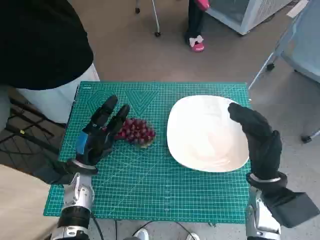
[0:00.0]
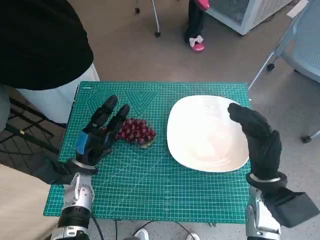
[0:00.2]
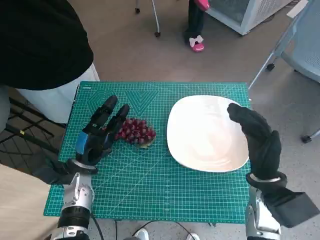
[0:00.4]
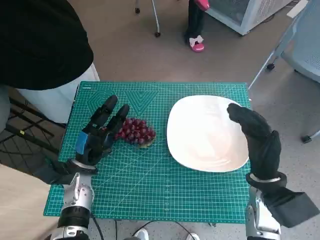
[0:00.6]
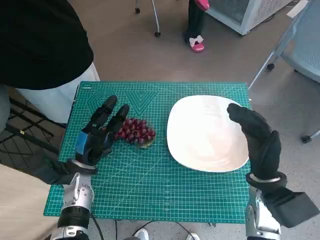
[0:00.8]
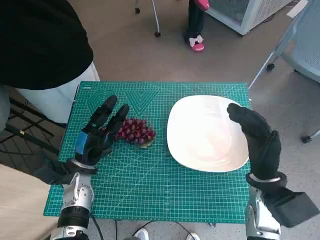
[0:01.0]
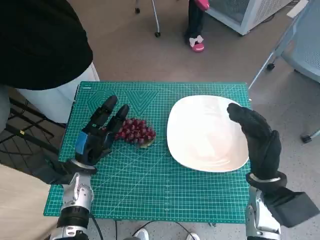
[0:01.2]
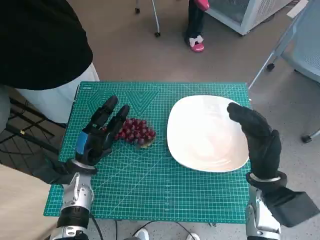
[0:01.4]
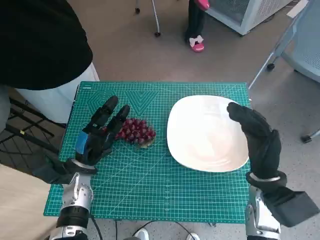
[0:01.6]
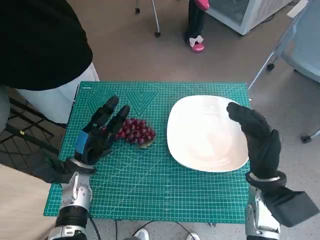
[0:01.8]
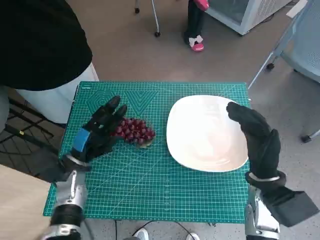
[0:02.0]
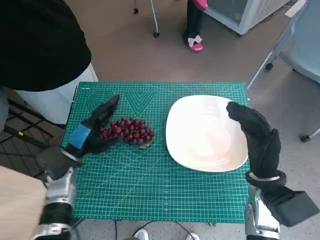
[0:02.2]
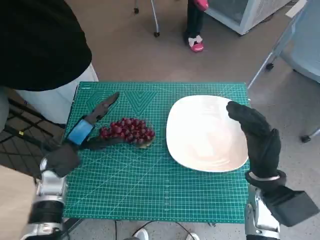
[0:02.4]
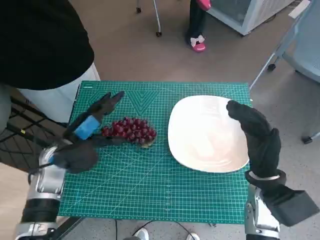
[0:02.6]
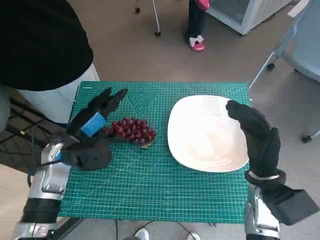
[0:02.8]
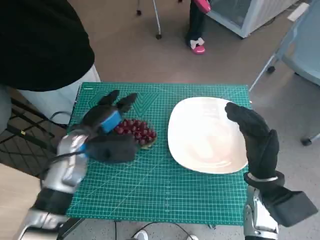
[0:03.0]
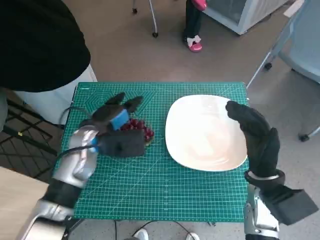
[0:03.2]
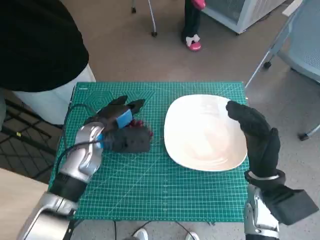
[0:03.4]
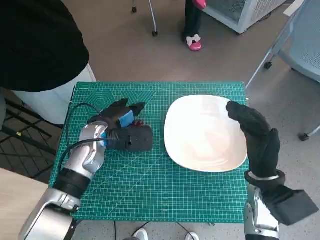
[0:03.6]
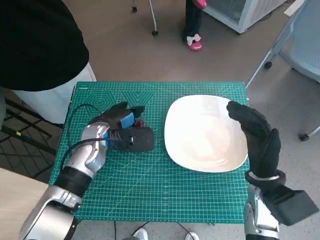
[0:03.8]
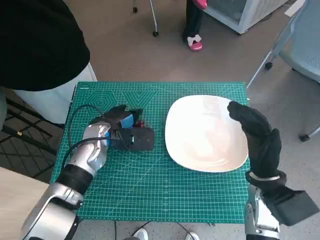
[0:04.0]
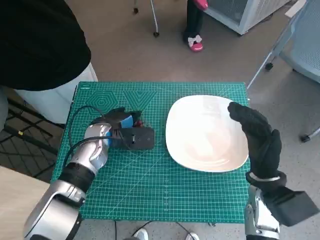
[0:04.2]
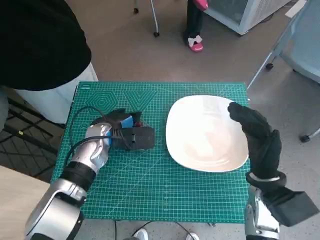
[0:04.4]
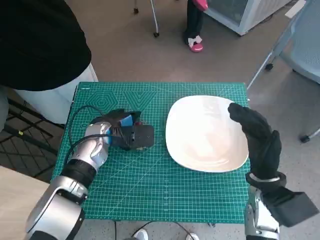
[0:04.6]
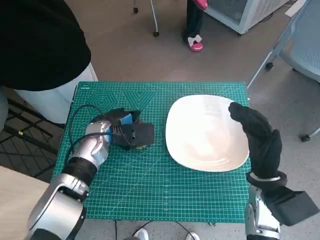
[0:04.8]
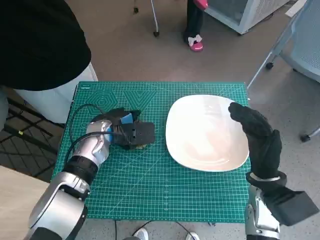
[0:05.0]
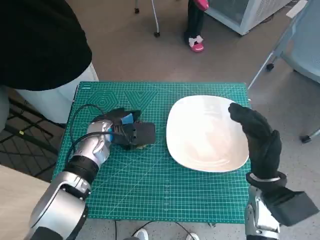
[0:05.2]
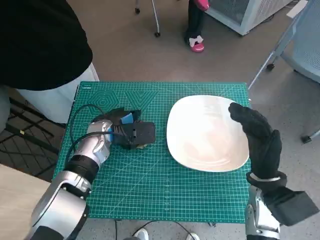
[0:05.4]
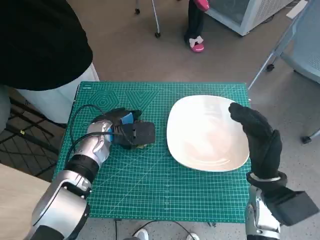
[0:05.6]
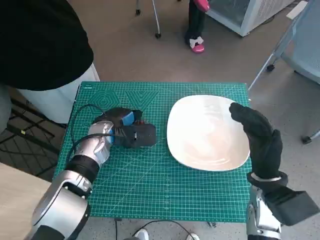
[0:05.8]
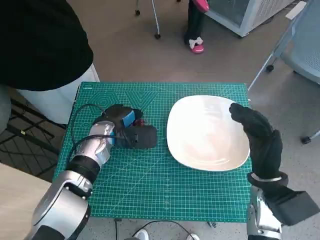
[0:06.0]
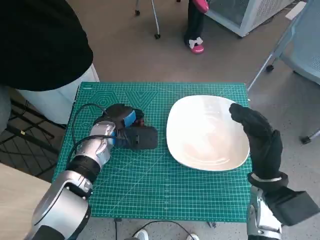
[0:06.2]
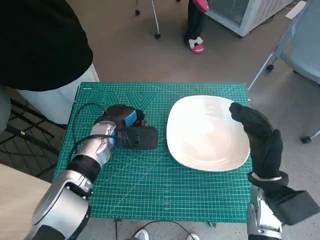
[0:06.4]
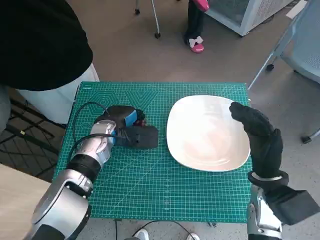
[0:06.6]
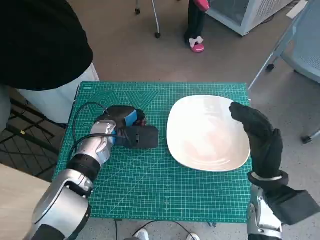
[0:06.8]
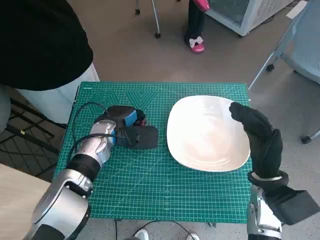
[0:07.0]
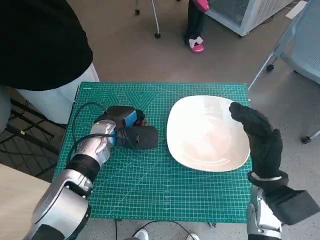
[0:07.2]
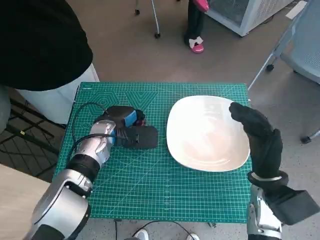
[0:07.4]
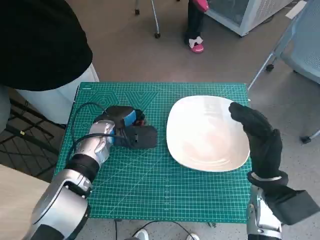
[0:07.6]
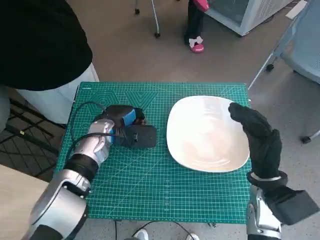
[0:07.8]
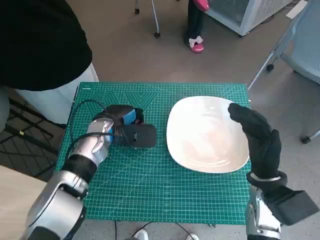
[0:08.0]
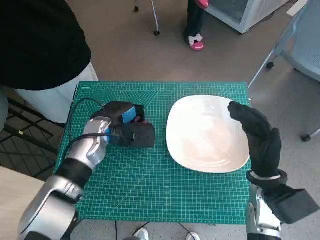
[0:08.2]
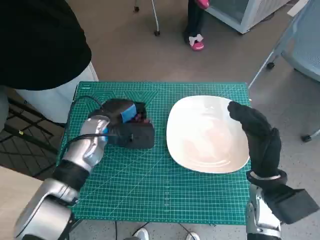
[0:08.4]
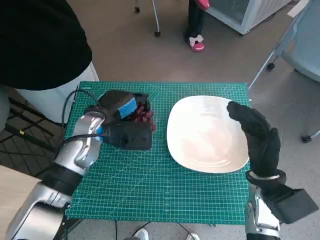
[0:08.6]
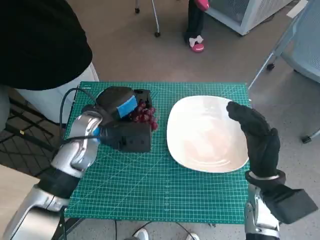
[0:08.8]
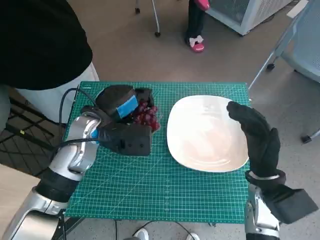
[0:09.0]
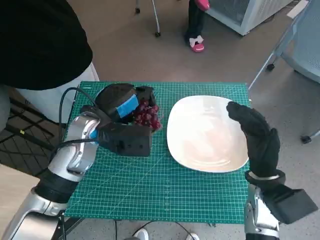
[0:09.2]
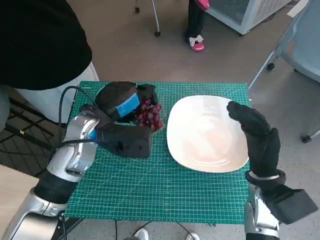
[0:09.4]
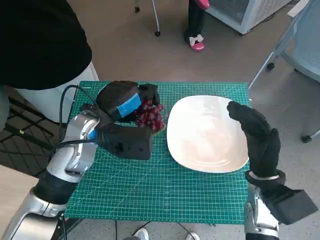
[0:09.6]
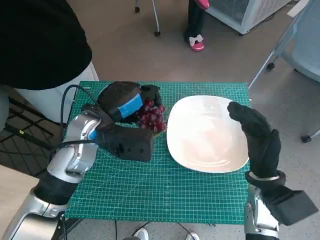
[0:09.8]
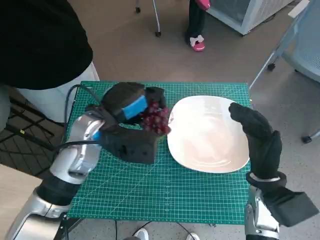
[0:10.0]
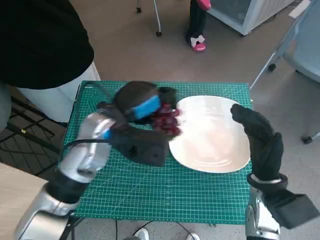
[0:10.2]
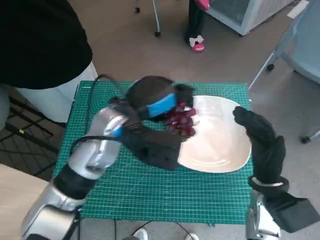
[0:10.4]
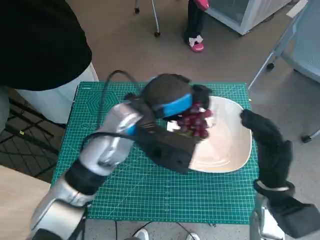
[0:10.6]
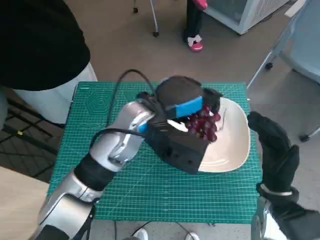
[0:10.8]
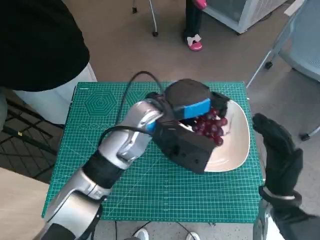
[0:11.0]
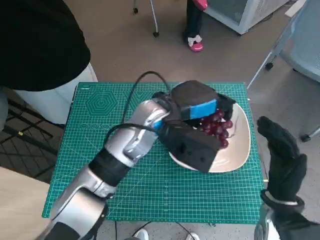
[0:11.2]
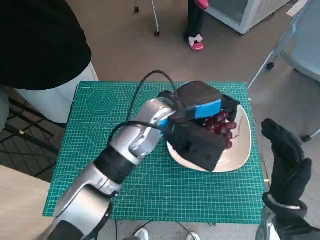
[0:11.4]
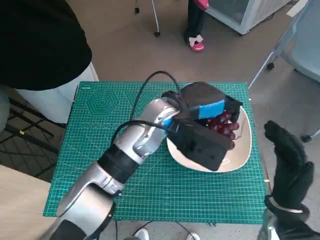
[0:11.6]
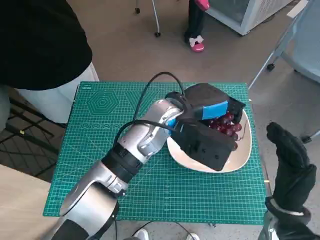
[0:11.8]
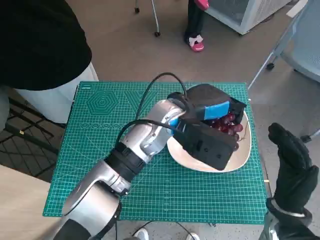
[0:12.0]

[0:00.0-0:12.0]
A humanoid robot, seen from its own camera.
Task of the whole recording: Pick up the grapes and put them on the plate.
Step, 0:00.0 to 0:06.4: Grasp the grapes with left hand.
0:01.6 to 0:03.0: The left hand moves upward, roughly 10 cm.
0:03.0 to 0:04.4: The left hand moves approximately 5 cm.
0:04.4 to 0:06.0: The hands make only small movements.
0:06.0 to 0:07.6: The two hands keep their place.
0:07.6 to 0:09.0: The left hand heads upward, covering some 10 cm.
0:09.0 to 0:10.4: The left hand travels to the right by some 5 cm.
0:10.4 to 0:12.0: The left hand moves to the right, about 10 cm.

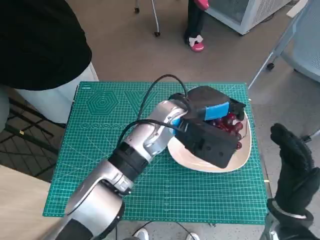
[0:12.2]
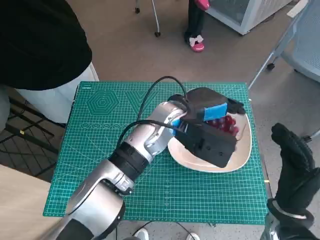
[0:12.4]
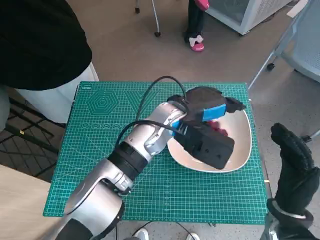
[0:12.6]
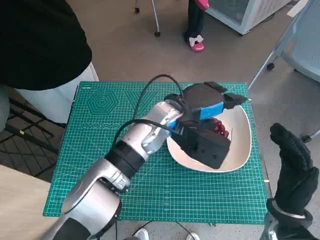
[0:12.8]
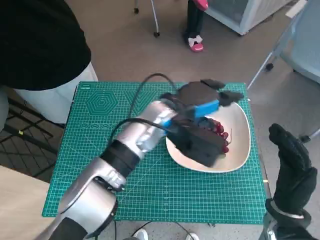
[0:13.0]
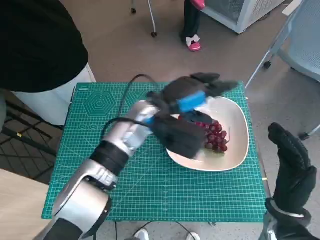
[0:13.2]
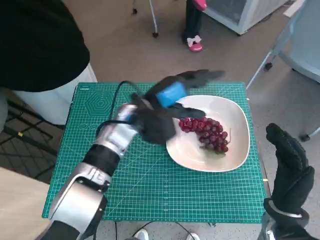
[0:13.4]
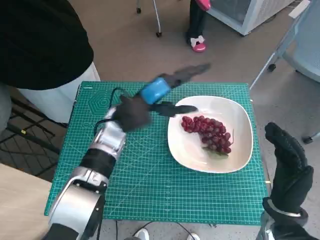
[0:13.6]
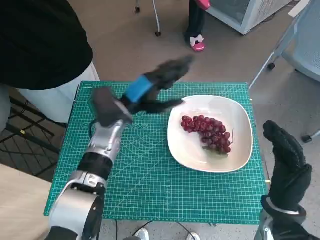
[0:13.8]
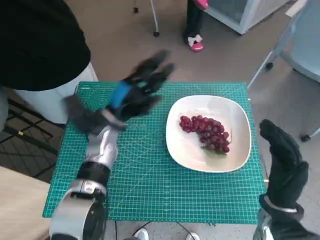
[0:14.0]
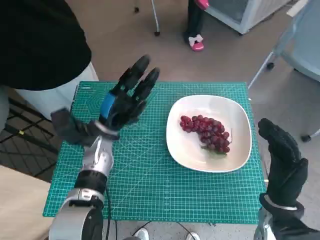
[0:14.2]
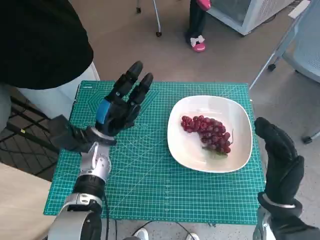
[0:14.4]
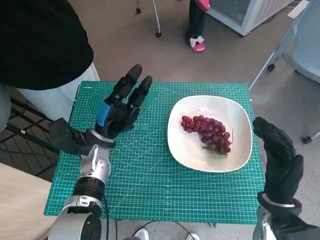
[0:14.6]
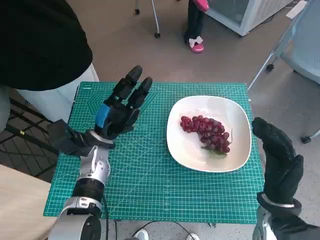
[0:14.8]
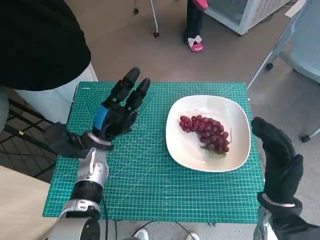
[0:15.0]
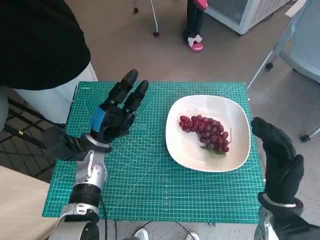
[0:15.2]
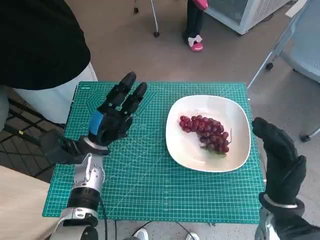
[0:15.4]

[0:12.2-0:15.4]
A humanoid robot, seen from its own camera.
Task of the whole recording: Pick up the grapes and put them on the plate.
0:12.2 to 0:13.8: The left hand is displaced to the left by some 15 cm.
0:13.8 to 0:15.4: The left hand goes approximately 10 cm downward, to the left and backward.

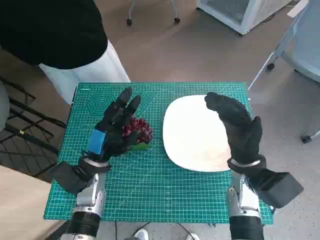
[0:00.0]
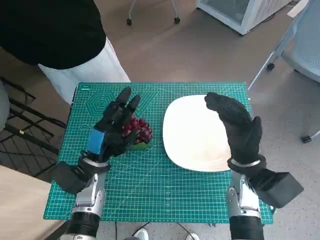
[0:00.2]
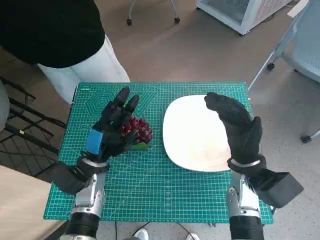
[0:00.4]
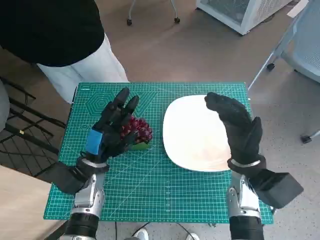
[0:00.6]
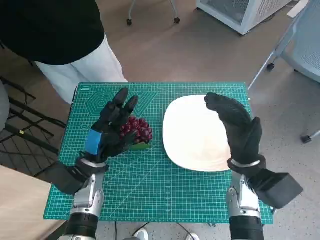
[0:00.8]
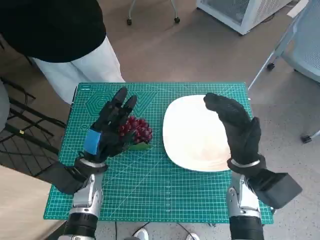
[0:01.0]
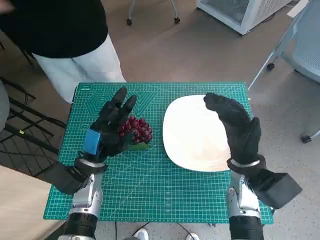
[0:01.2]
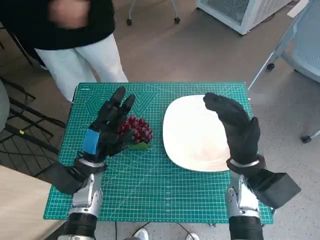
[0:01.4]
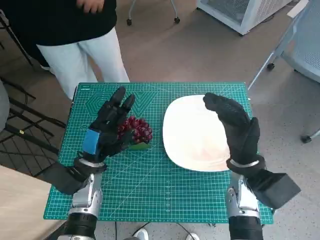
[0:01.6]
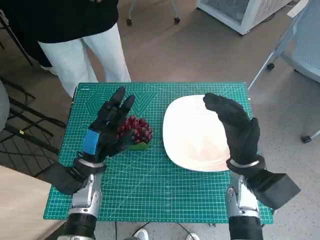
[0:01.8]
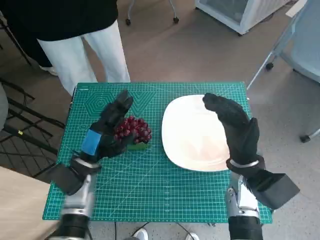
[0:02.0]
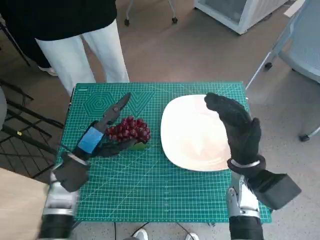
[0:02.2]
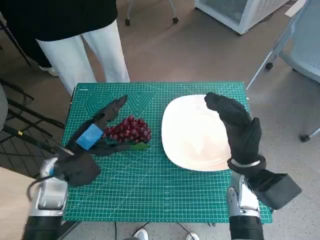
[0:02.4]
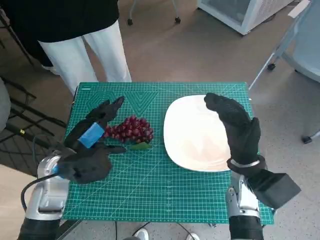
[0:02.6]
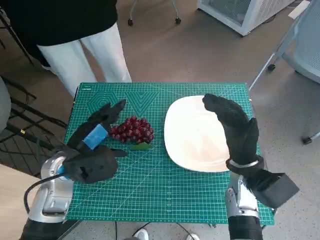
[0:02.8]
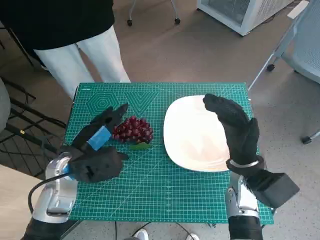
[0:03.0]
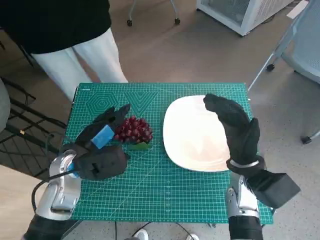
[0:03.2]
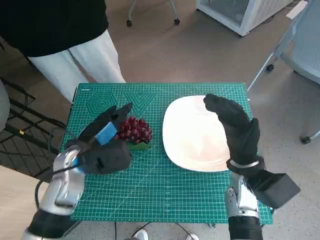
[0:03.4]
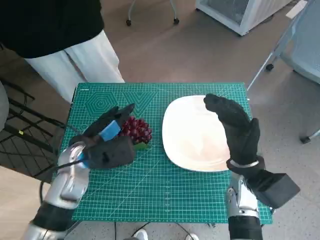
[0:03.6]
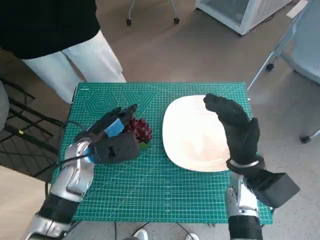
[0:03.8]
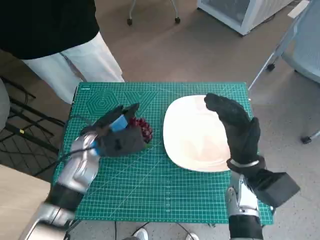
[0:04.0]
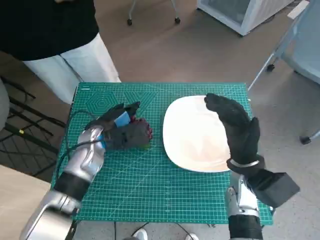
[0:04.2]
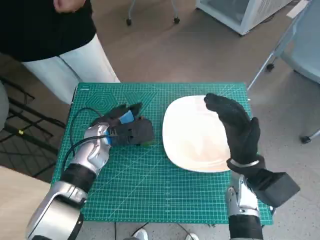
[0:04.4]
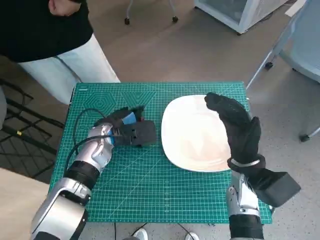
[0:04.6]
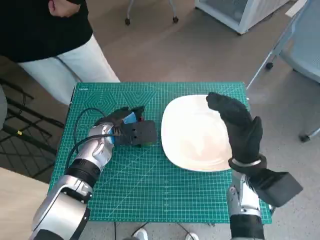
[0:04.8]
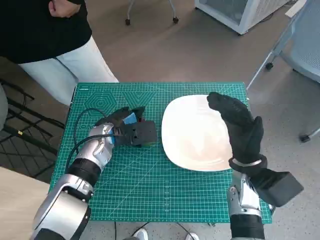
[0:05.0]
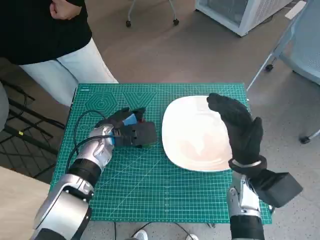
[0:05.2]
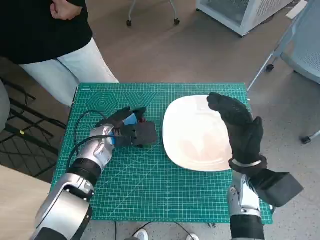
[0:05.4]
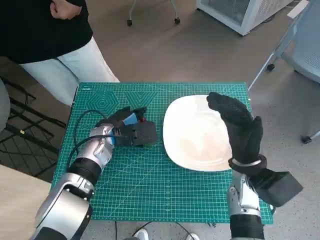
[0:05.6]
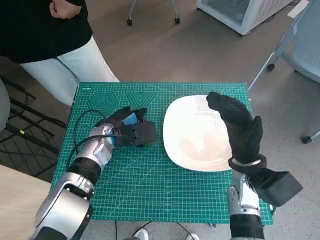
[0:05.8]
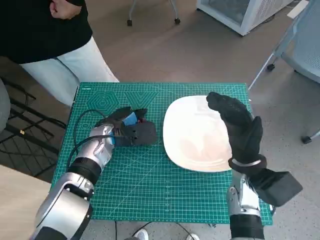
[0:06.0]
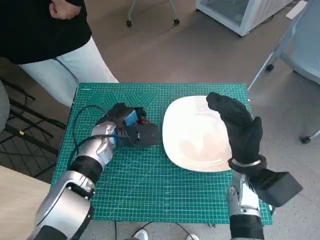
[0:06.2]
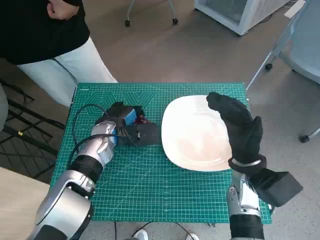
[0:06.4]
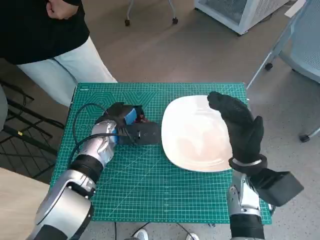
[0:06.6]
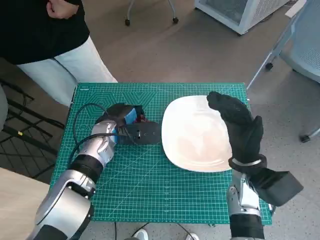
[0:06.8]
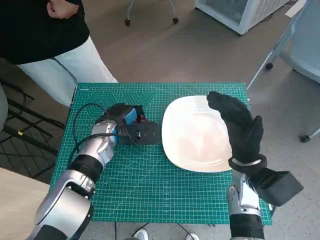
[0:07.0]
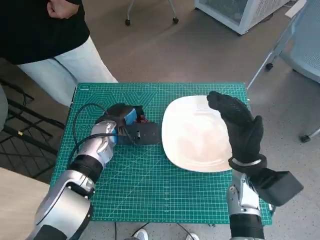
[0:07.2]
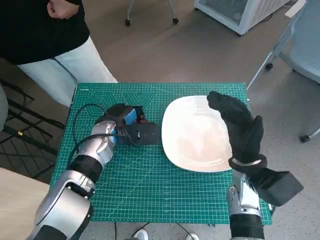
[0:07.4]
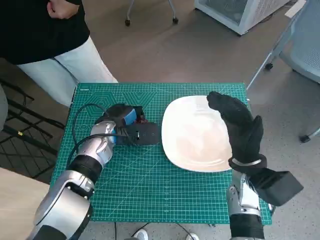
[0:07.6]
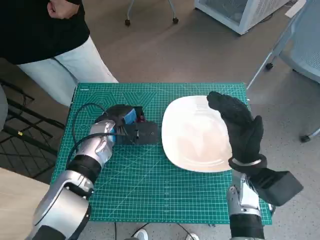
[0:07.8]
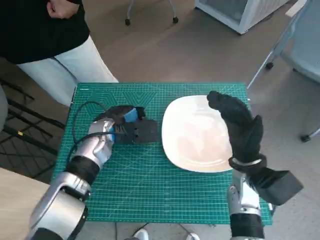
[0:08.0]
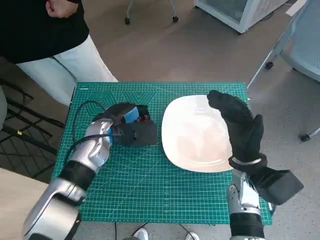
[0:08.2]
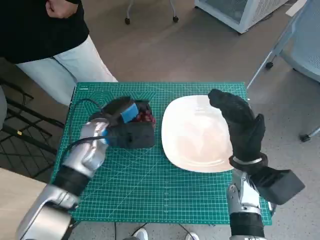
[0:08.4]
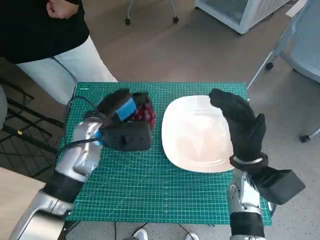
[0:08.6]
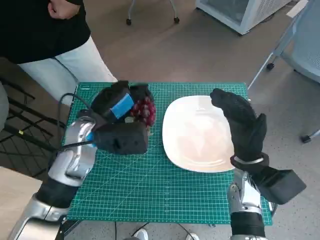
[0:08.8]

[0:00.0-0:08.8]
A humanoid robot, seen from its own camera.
Task of the whole recording: Pick up the grapes and put them on the plate.
Step, 0:00.0 to 0:04.4: Grasp the grapes with left hand.
0:01.4 to 0:03.0: The left hand moves upward, about 5 cm.
0:03.0 to 0:04.4: The left hand is displaced forward by approximately 10 cm.
0:04.4 to 0:07.4: The hands make only small movements.
0:07.4 to 0:08.8: The left hand travels upward by about 5 cm.
